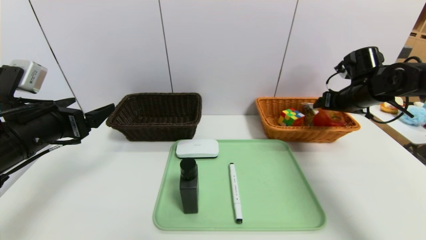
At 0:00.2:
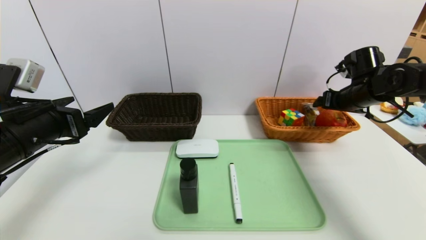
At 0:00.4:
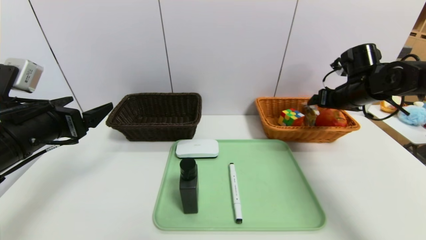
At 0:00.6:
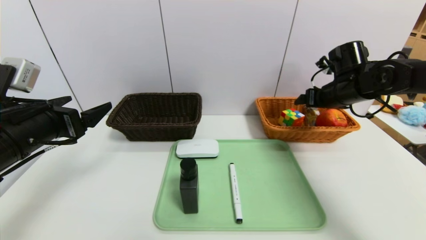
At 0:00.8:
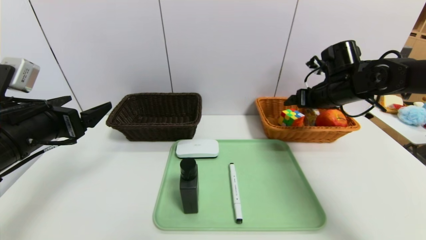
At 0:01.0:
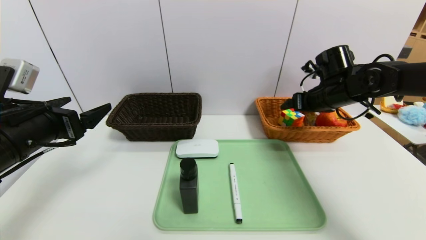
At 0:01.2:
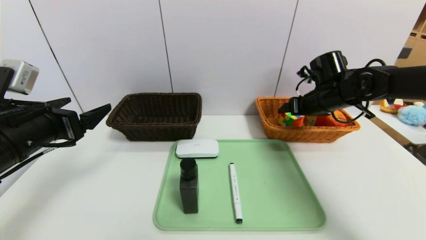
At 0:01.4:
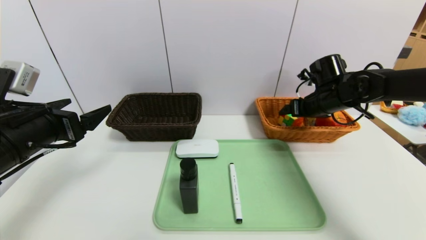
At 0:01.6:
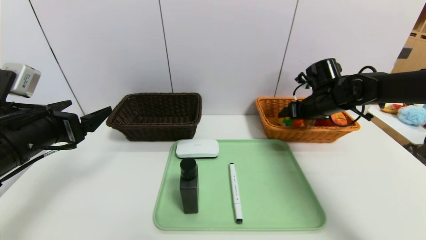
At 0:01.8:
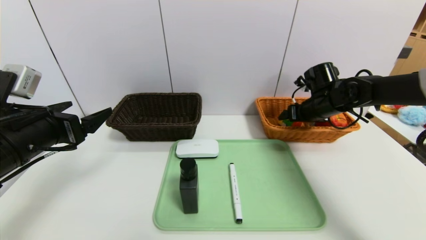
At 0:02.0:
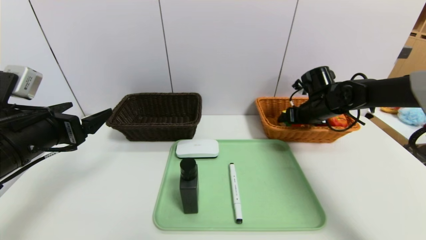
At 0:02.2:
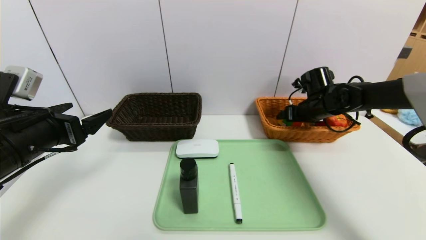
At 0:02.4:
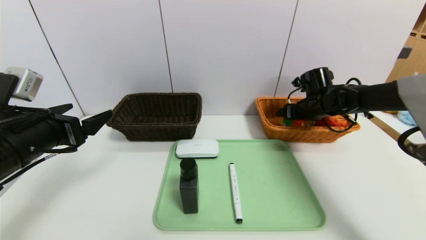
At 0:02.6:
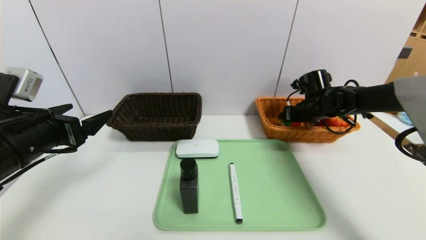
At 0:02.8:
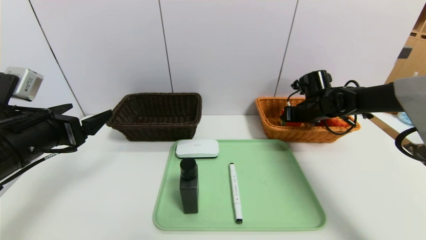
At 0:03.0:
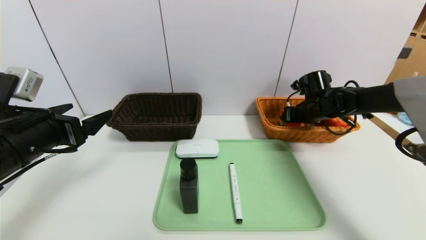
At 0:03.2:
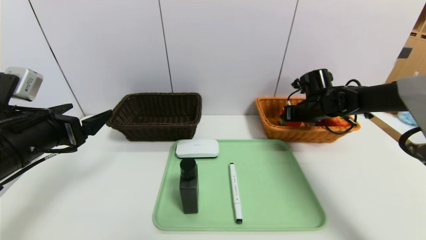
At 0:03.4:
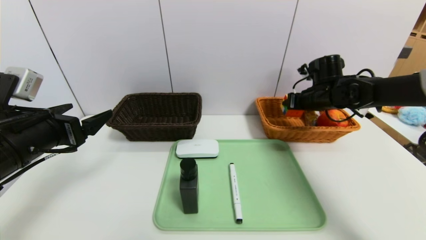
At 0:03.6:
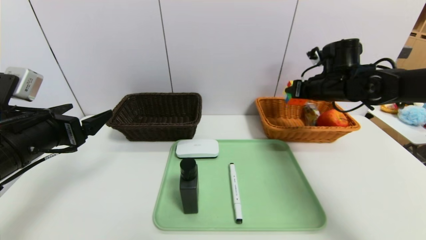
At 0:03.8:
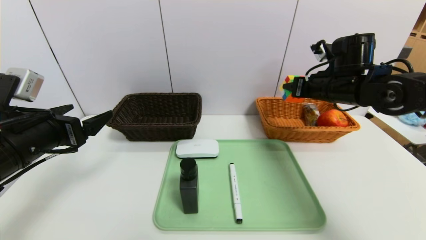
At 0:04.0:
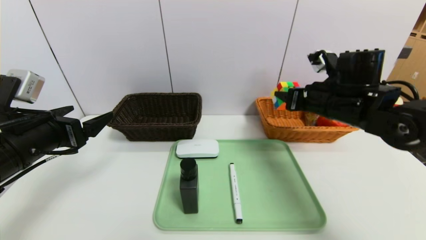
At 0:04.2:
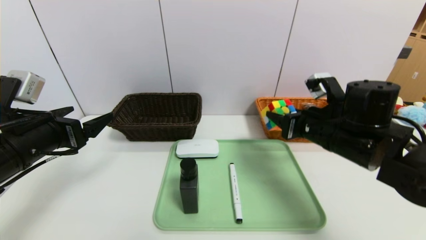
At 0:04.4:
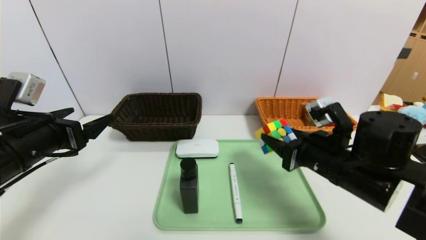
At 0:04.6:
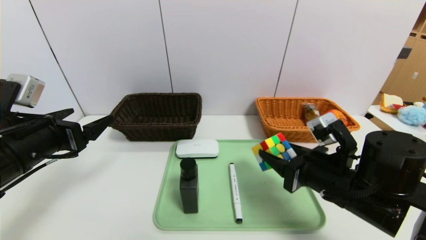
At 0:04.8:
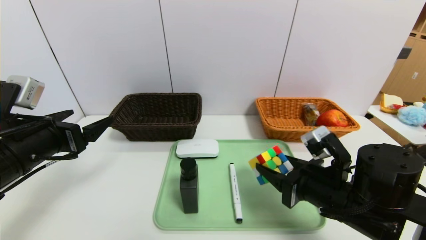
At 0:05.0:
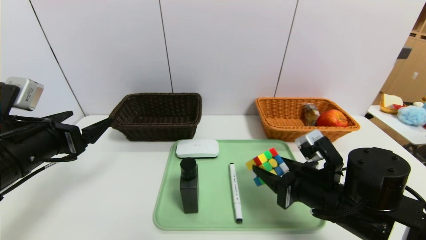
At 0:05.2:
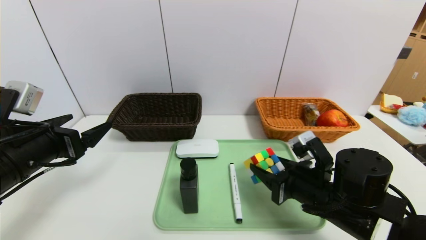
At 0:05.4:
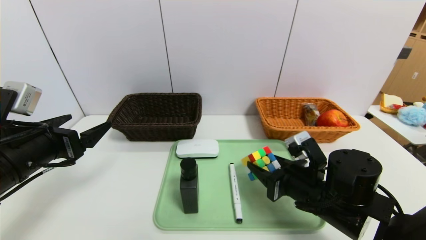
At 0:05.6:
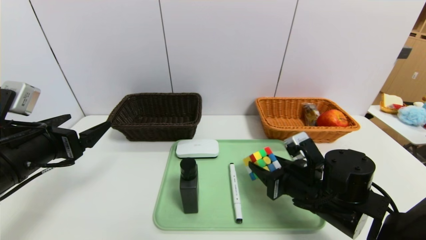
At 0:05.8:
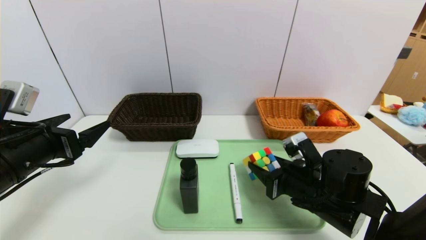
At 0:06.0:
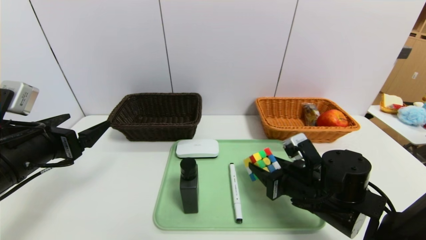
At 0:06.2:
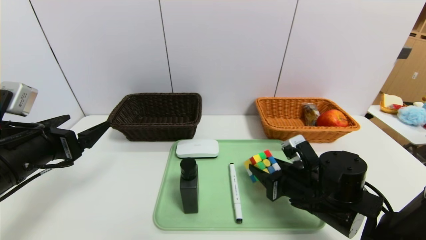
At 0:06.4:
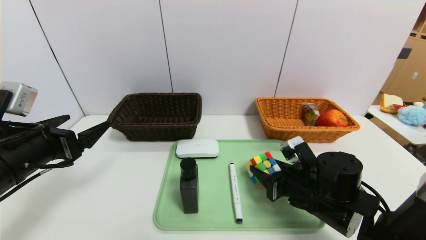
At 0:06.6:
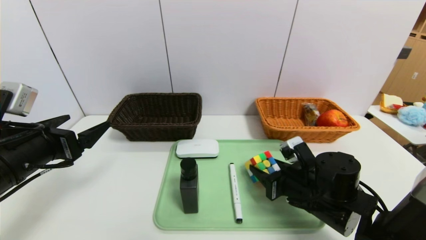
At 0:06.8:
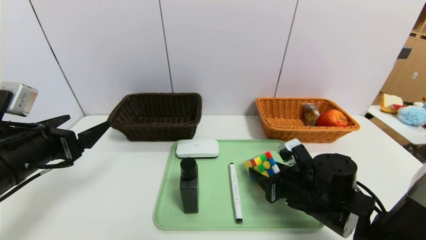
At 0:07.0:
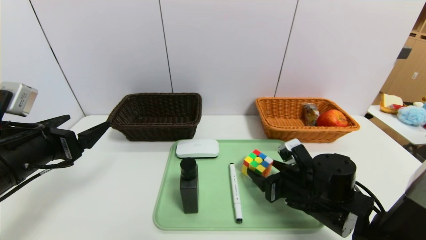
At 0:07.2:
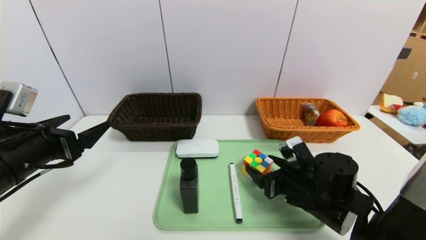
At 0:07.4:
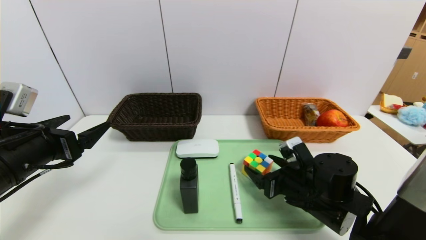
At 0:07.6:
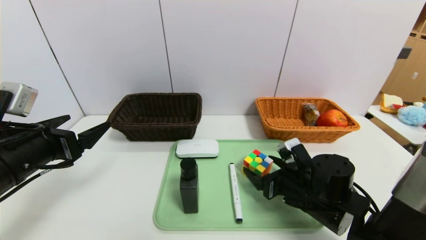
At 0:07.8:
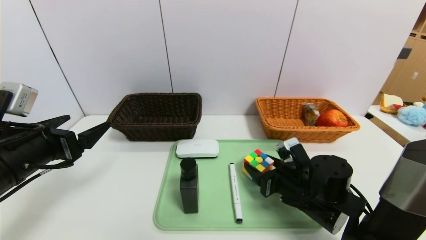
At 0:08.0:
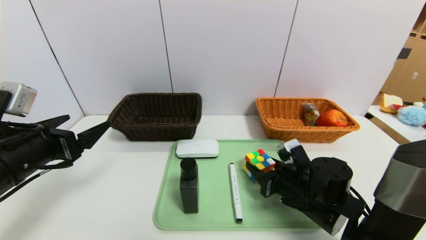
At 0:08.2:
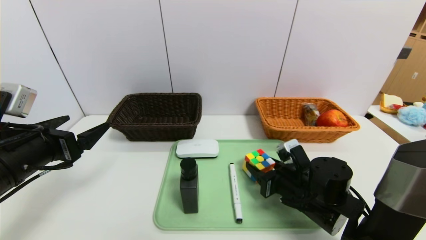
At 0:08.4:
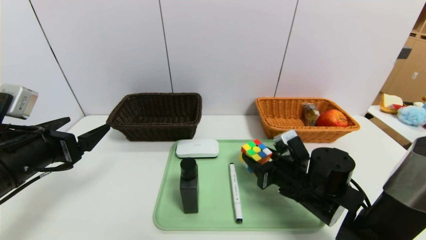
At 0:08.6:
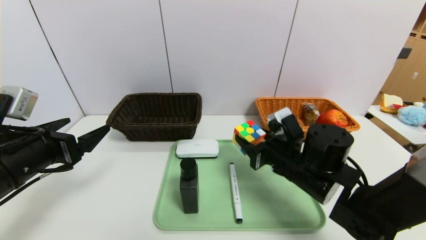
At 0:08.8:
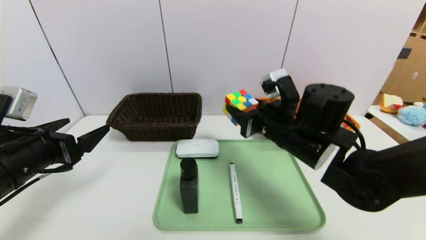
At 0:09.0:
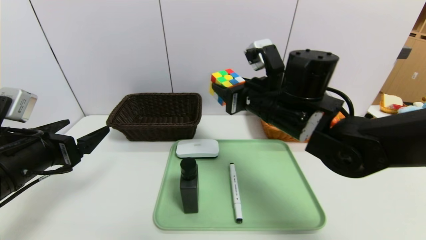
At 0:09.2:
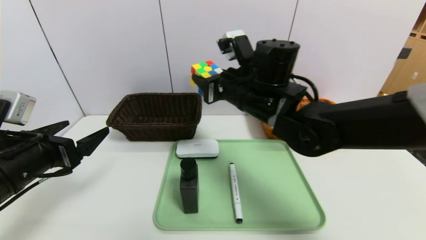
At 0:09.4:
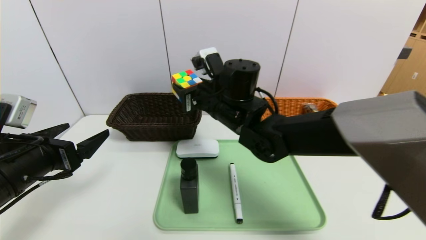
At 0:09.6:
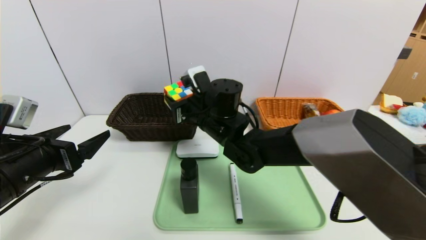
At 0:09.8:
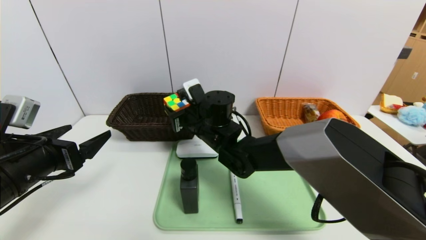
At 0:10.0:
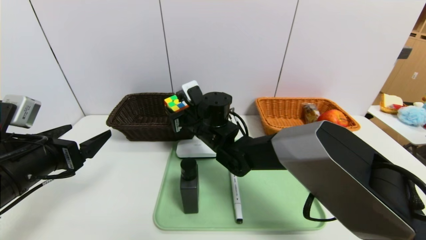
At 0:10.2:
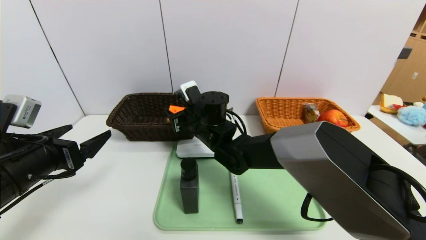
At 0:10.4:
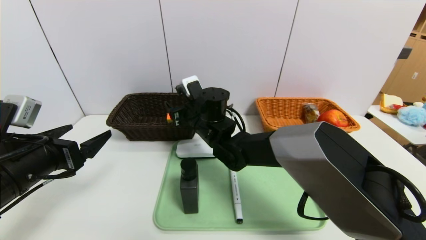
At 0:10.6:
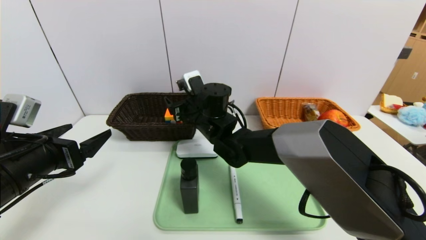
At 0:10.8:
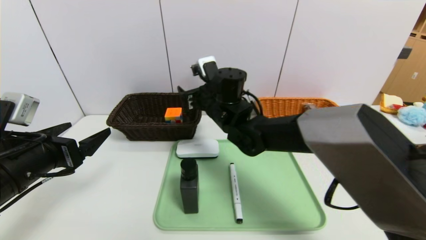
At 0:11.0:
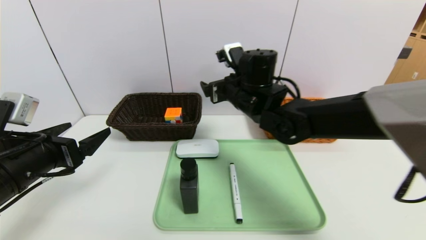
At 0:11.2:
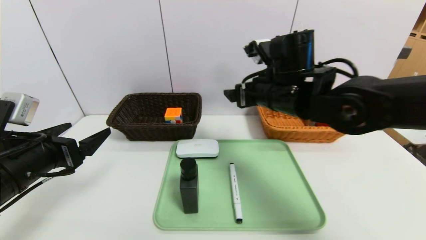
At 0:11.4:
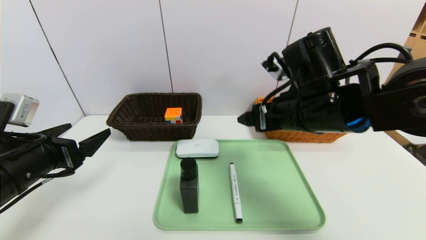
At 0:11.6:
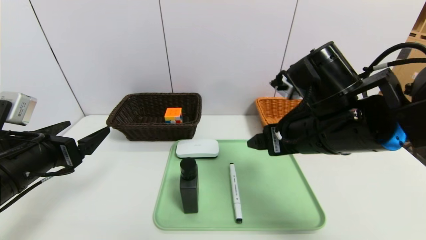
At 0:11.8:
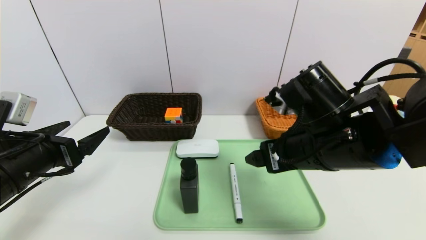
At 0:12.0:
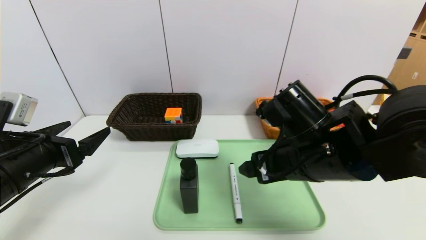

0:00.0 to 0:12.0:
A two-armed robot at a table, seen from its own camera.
Task of the whole recording: place the food in the right basket with the right gripper, and place the non food items in the left basket with the left gripper.
Step, 0:00.6 to 0:07.4: Place the rubiks cube in the center of the table.
0:00.0 to 0:01.6: The right gripper travels to the left by approximately 5 cm.
0:01.6 to 0:03.0: The right gripper closes.
0:03.0 to 0:04.4: The right gripper goes roughly 20 cm backward.
0:04.4 to 0:06.0: The right gripper heads downward, covering roughly 5 cm.
0:06.0 to 0:07.6: The right gripper opens.
0:07.6 to 0:09.0: The right gripper goes some 20 cm upward and to the left, and closes its fingers.
0:09.0 to 0:10.4: The right gripper heads to the left, forward and downward, covering approximately 15 cm.
0:10.4 to 0:12.0: The right gripper shifts approximately 25 cm backward and to the right.

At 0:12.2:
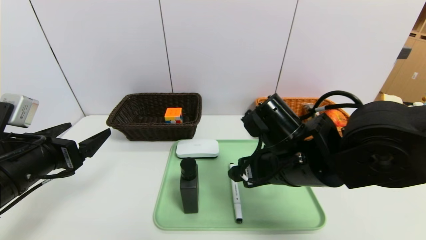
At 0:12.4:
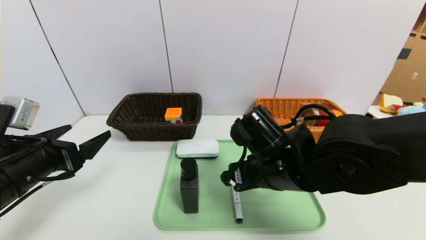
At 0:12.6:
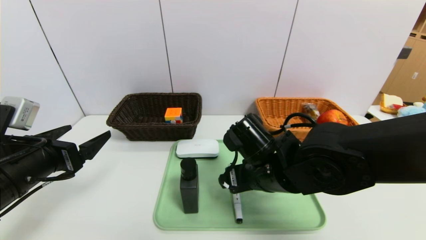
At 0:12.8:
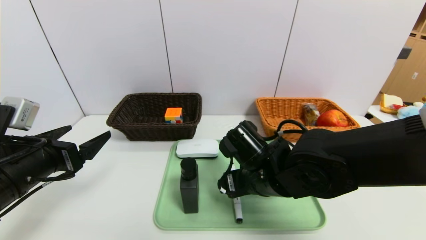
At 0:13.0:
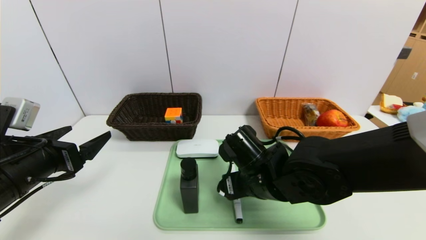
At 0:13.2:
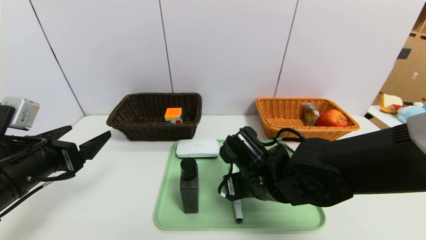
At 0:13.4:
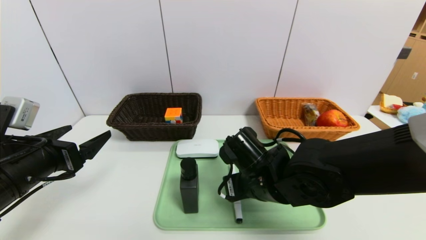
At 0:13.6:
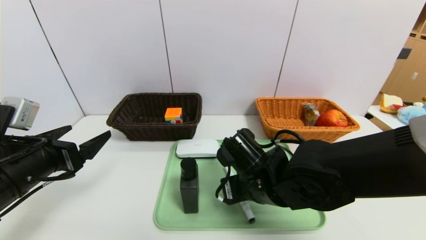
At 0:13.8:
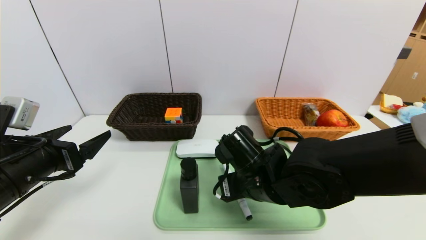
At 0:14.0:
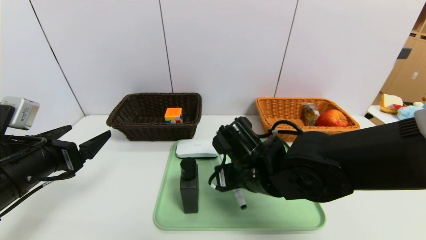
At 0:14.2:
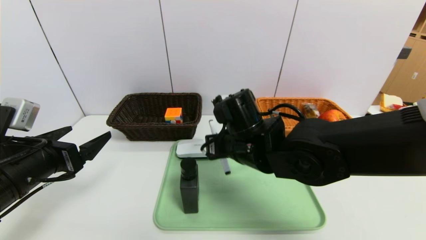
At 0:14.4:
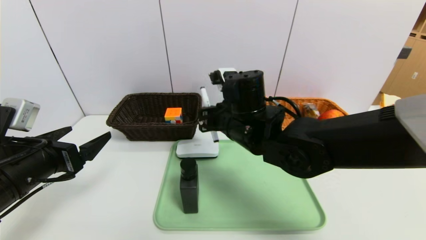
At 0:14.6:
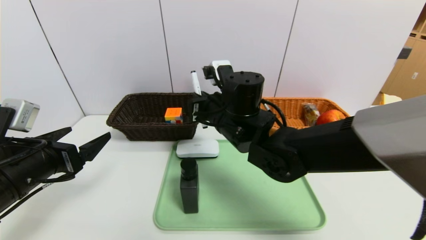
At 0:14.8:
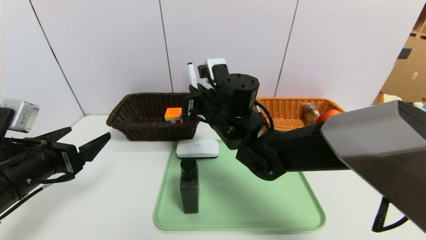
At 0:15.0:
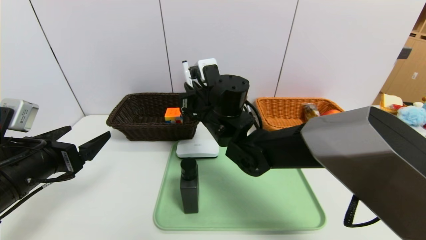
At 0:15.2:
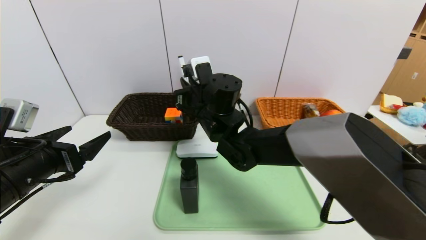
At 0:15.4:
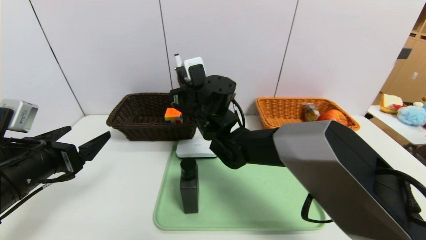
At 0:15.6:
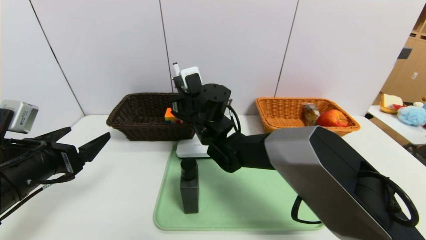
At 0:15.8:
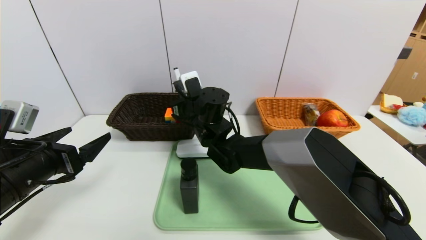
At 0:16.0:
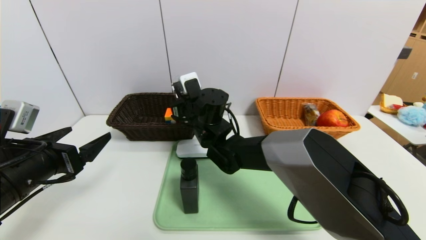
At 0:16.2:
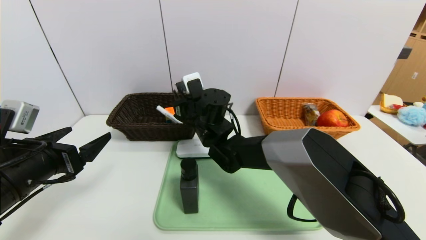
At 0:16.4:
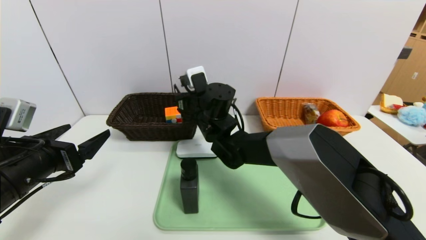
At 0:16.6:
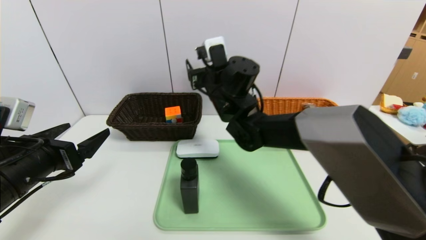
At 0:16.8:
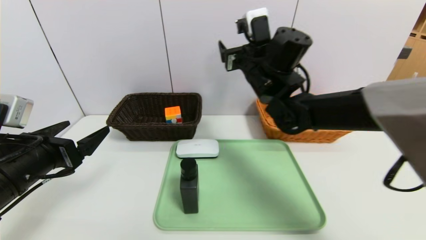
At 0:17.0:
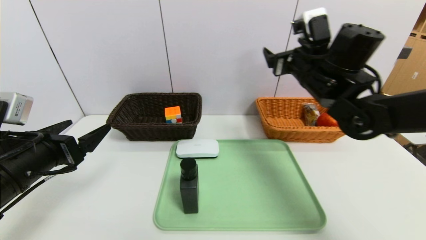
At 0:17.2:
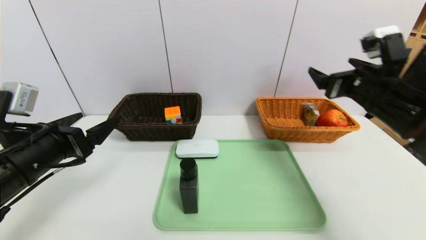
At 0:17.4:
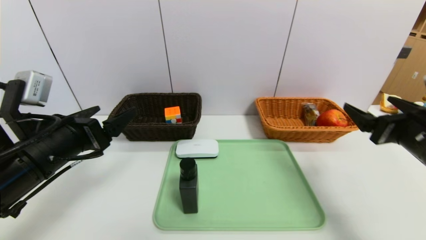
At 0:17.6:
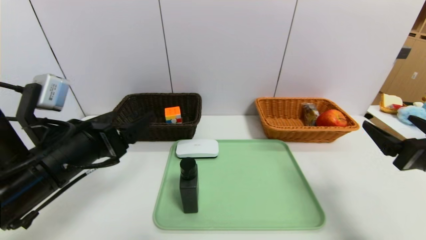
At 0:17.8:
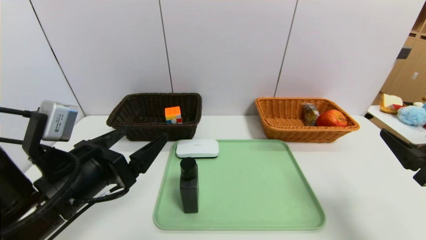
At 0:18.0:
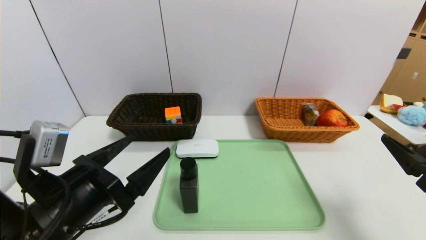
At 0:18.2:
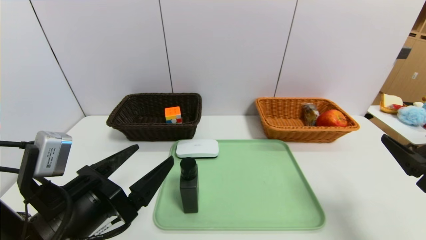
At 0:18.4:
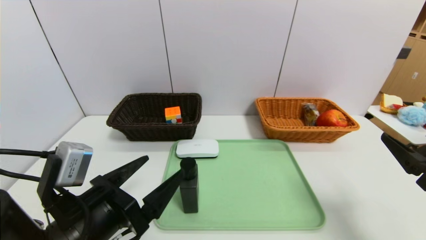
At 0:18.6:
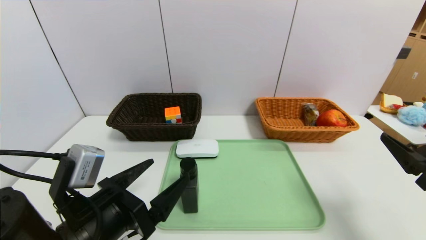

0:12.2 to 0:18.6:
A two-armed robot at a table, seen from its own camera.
Task of the whole recording: place the food in the right basket with the right gripper, and place the non food items in the left basket with the left gripper.
0:12.2 to 0:13.8: The right gripper moves downward, some 5 cm, and closes its fingers.
0:13.8 to 0:15.4: The right gripper travels forward, to the left and upward by some 15 cm.
0:15.4 to 0:17.0: The right gripper shifts approximately 20 cm to the right, and opens up.
0:17.0 to 0:18.6: The left gripper travels to the right and backward by roughly 15 cm. The right gripper heads backward and to the right, covering some 25 cm.
